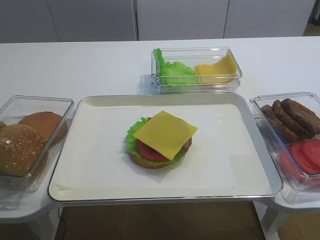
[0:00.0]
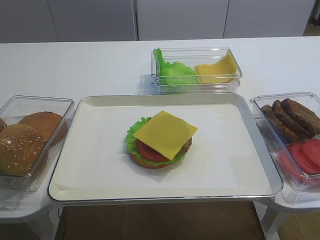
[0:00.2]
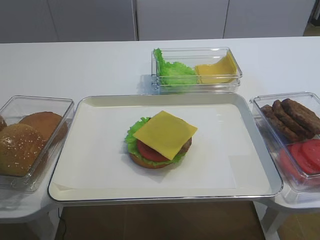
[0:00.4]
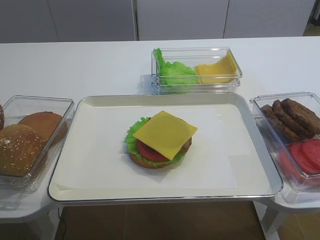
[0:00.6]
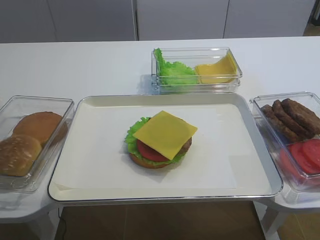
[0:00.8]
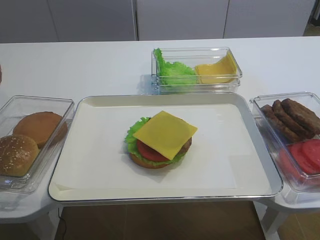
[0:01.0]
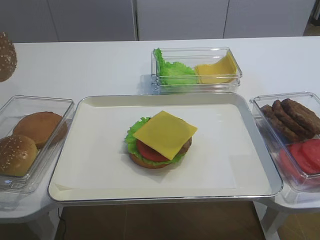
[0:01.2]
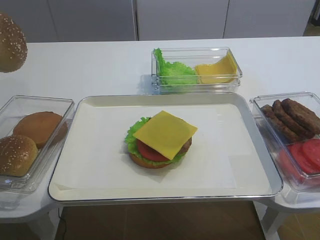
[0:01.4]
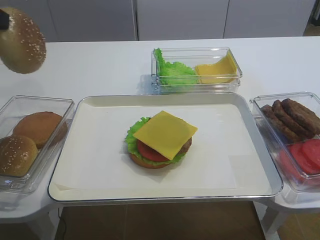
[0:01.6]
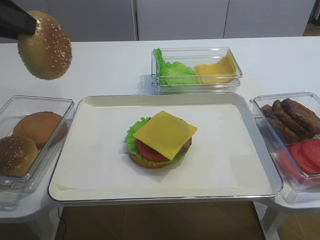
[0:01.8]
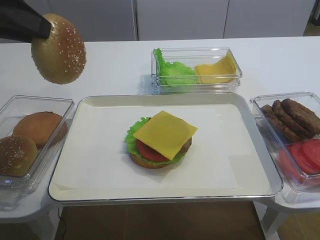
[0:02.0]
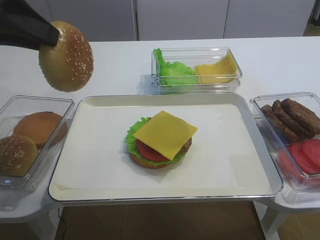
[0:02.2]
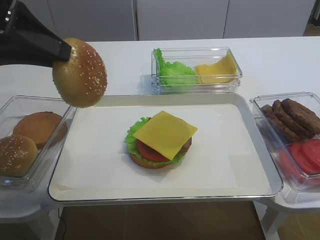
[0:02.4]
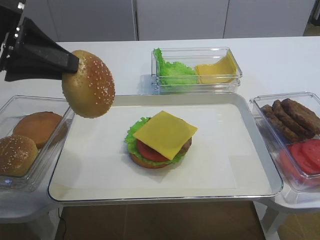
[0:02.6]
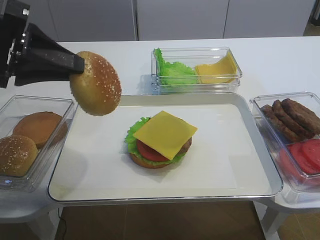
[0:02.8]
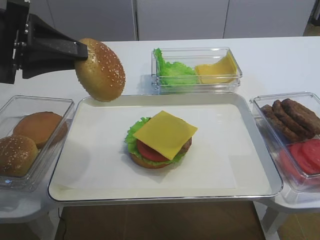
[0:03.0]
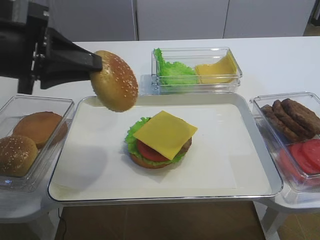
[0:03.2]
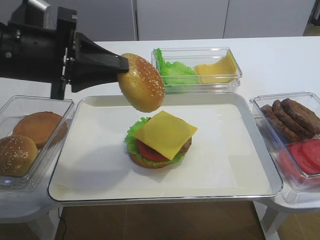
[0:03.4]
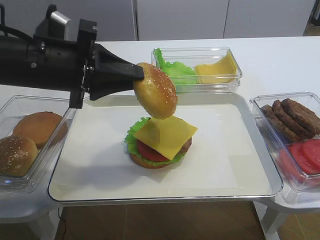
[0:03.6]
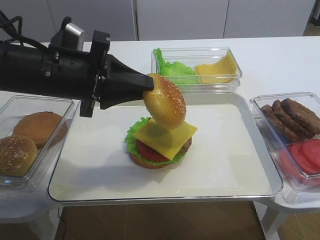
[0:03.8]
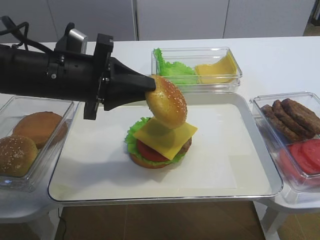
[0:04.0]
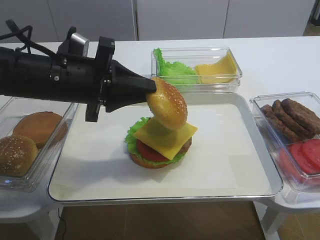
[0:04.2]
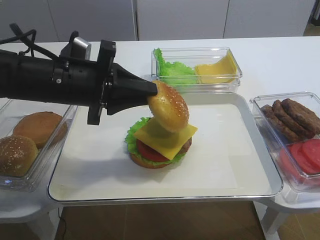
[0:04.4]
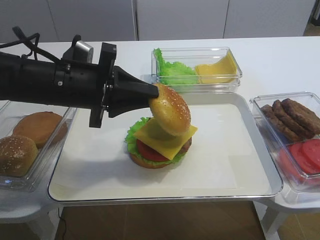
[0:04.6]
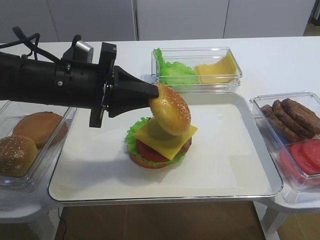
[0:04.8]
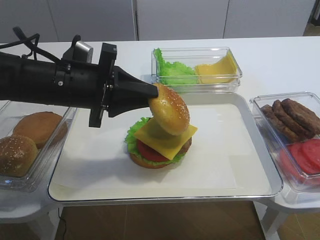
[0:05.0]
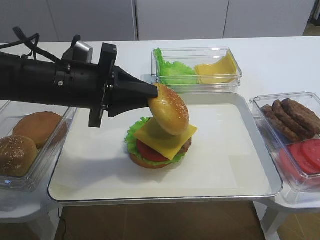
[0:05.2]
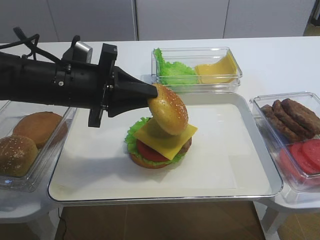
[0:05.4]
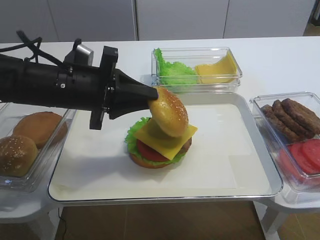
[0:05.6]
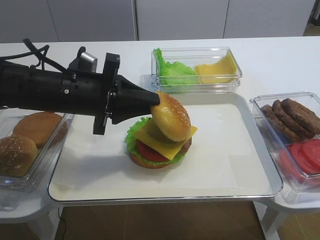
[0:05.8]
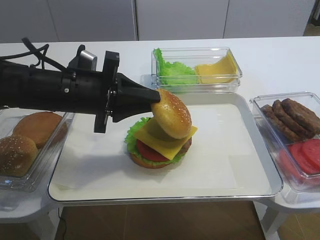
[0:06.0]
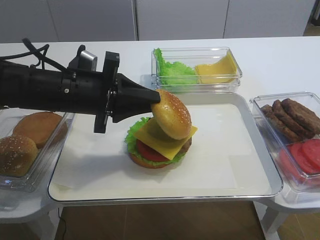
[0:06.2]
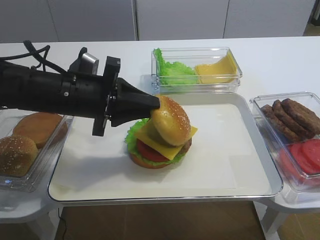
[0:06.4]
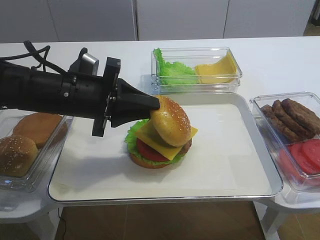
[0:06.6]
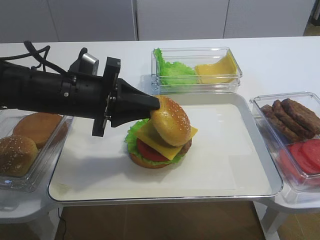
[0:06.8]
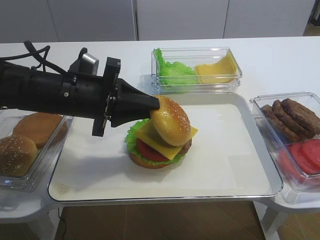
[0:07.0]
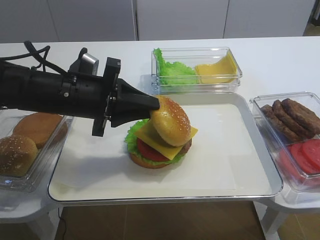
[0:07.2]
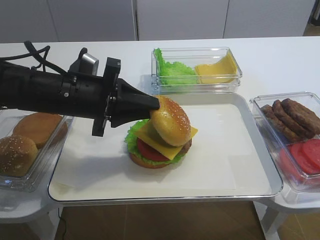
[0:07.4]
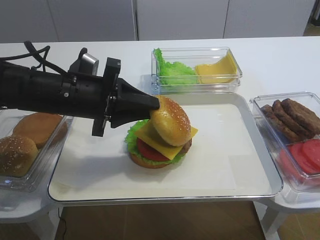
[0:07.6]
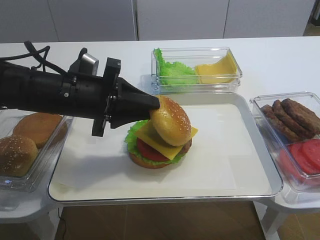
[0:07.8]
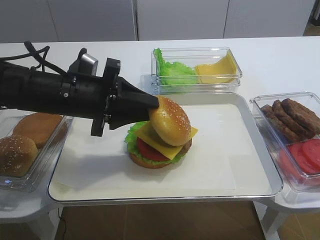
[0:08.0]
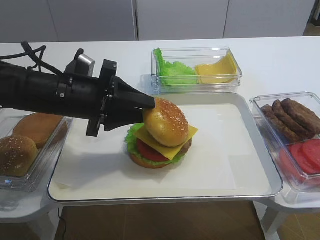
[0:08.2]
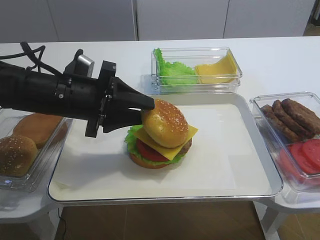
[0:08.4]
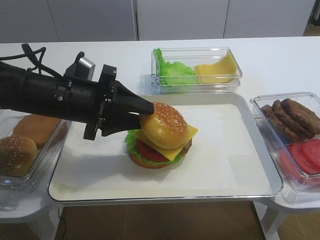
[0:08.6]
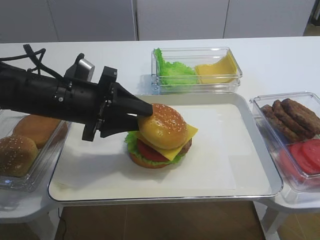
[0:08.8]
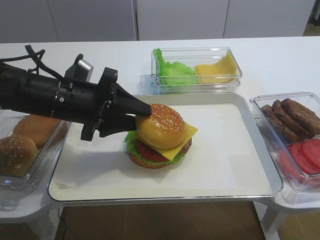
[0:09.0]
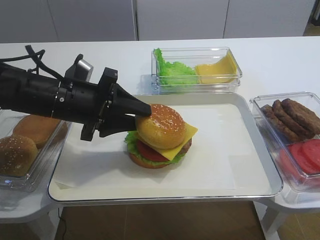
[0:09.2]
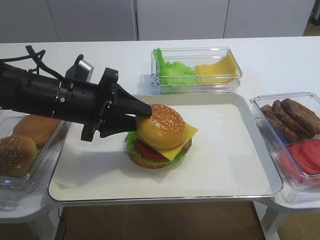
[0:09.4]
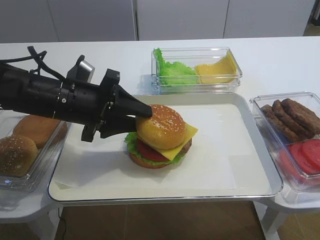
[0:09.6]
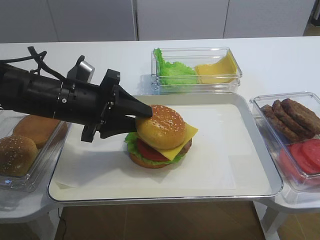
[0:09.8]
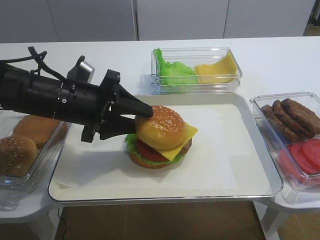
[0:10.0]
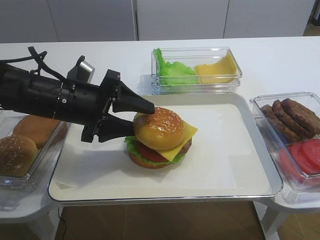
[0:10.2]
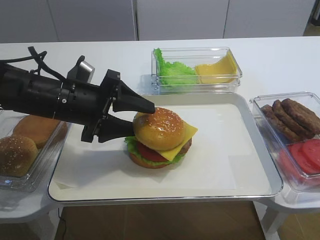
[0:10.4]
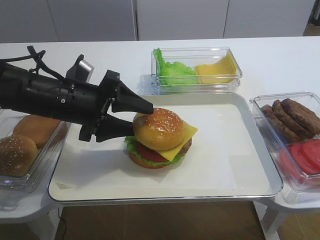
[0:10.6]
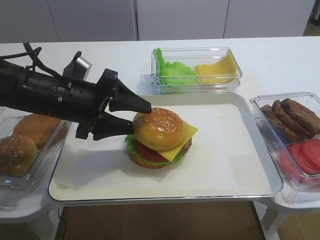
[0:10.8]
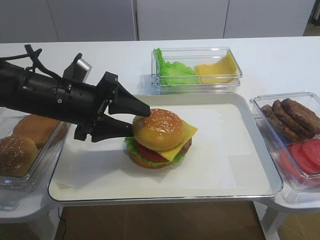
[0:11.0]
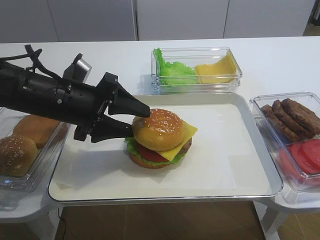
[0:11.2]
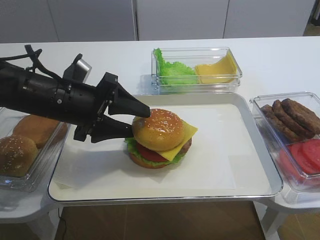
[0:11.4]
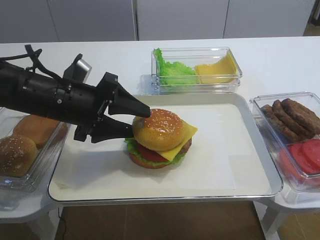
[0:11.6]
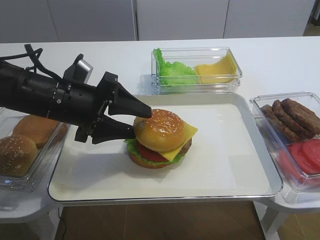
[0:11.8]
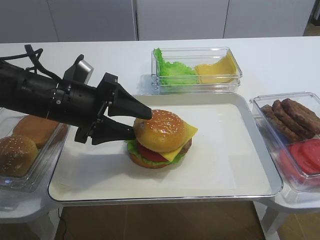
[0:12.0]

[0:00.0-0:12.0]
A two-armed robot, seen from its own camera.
0:00.0 to 0:01.6: The left gripper moves upward, roughly 10 cm.
0:01.6 to 0:03.0: The left gripper heads to the right and downward, covering about 10 cm.
0:03.0 to 0:04.4: The left gripper travels to the right and downward by about 10 cm.
0:04.4 to 0:06.0: The grippers make only small movements.
0:06.0 to 0:07.6: Both grippers stay about where they are.
0:07.6 to 0:09.0: The left gripper opens its fingers.
0:09.0 to 0:10.4: The left gripper opens up.
0:10.4 to 0:12.0: The grippers make only small movements.

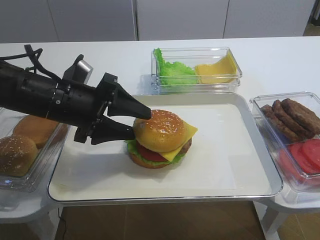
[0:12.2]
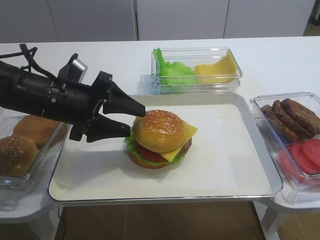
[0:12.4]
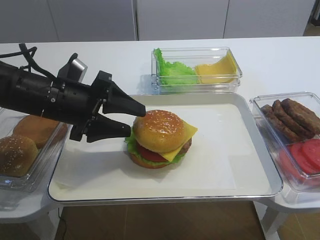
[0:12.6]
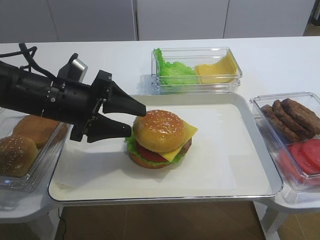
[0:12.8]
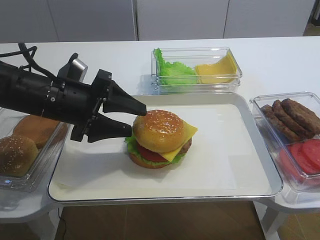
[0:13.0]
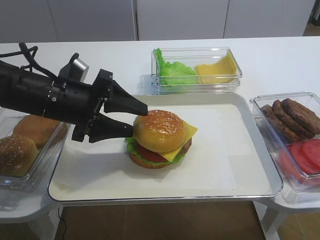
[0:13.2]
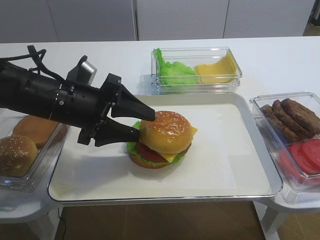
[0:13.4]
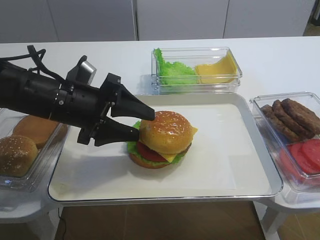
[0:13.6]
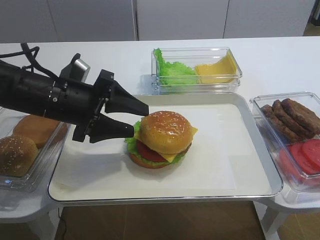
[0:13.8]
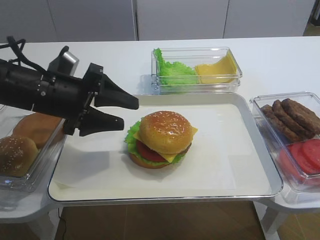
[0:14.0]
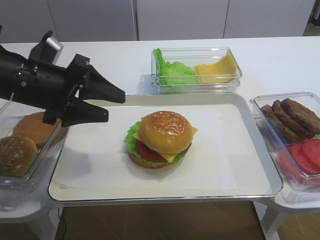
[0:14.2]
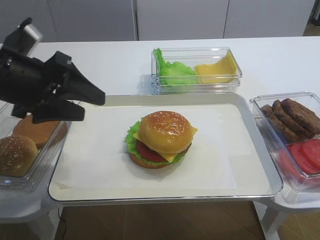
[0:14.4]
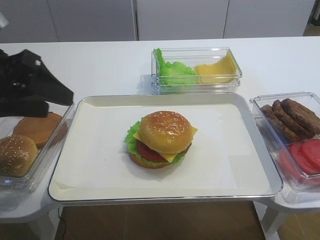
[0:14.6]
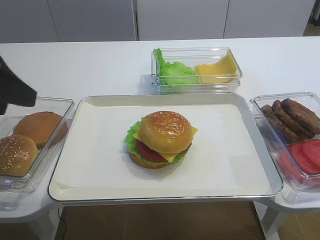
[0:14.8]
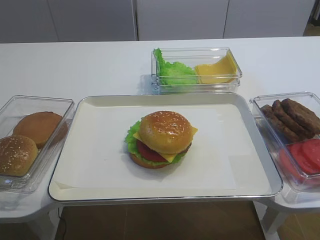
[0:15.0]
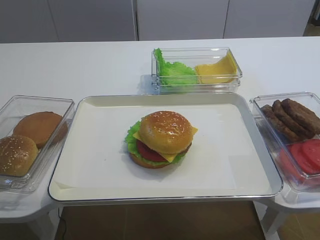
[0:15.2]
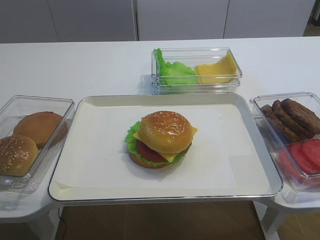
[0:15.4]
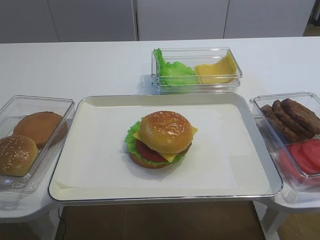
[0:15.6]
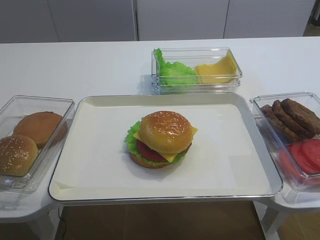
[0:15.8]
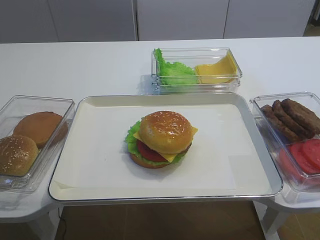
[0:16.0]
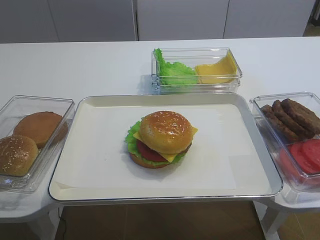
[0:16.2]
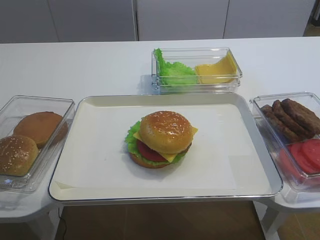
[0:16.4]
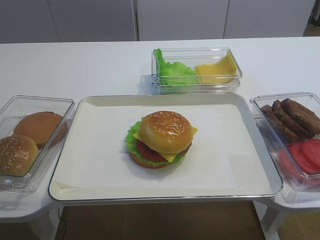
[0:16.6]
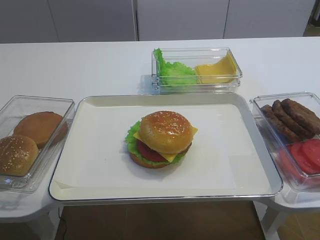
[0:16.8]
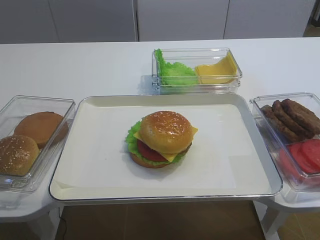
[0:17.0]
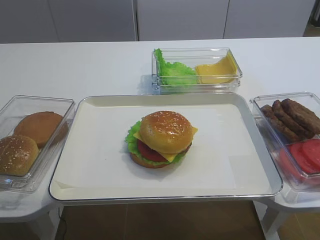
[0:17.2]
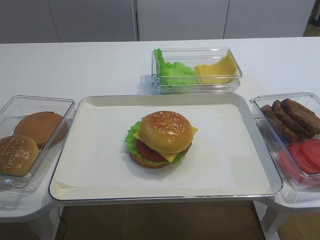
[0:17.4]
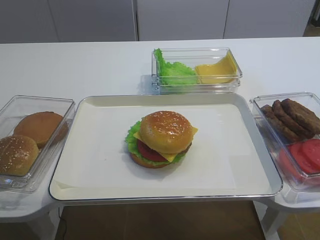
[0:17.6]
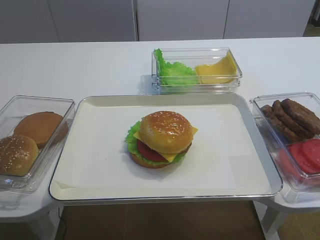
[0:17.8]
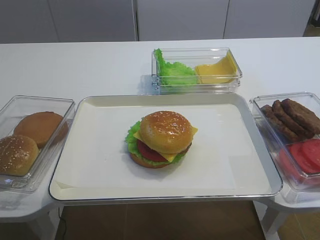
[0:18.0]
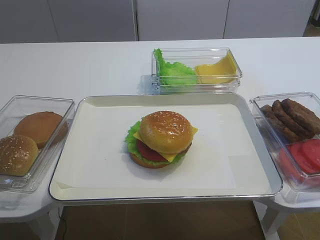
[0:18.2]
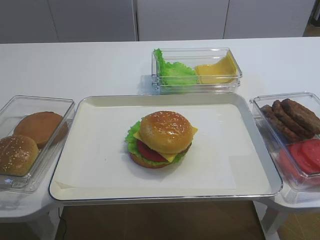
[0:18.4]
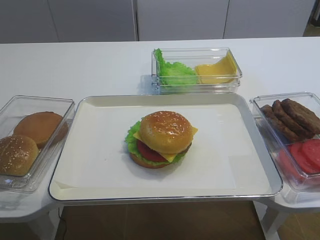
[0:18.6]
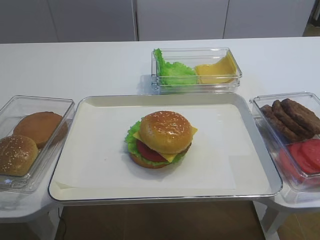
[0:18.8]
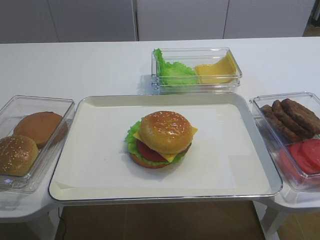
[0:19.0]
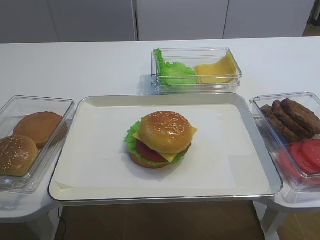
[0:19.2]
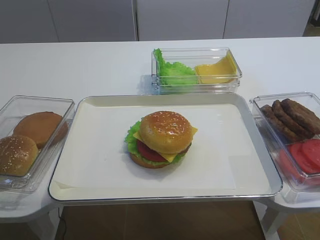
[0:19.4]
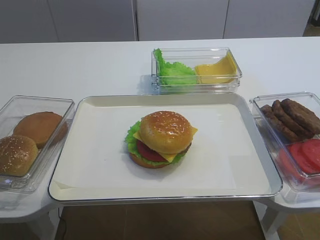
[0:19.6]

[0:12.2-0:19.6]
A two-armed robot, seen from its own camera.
0:12.2 to 0:13.6: Both grippers stay put.
0:13.6 to 0:15.2: The left gripper goes approximately 25 cm backward, upward and to the left.
